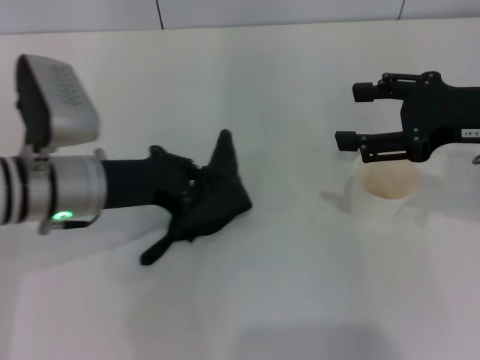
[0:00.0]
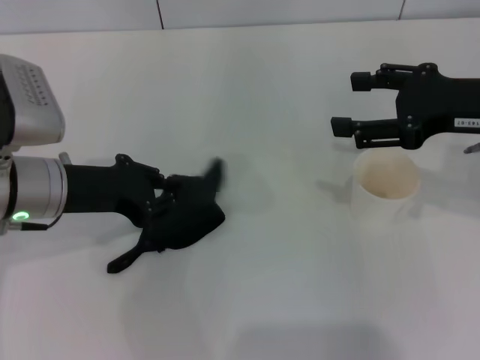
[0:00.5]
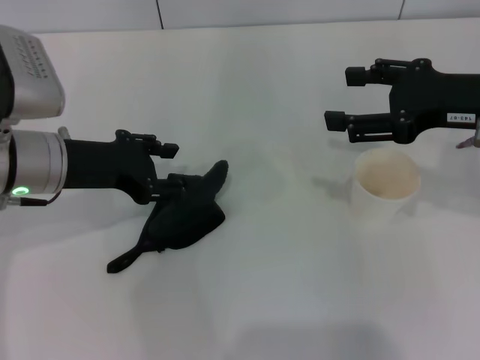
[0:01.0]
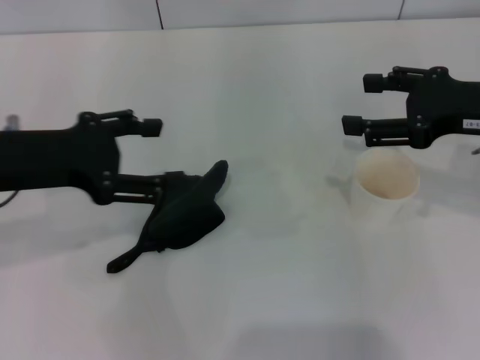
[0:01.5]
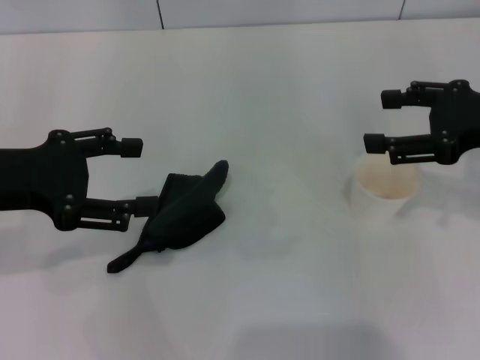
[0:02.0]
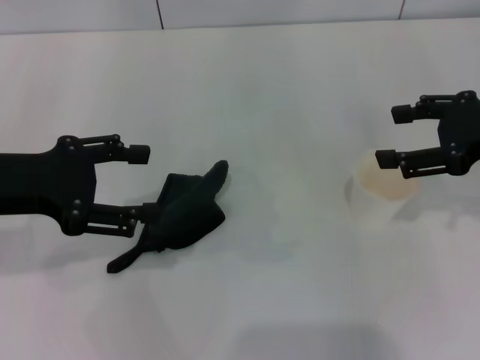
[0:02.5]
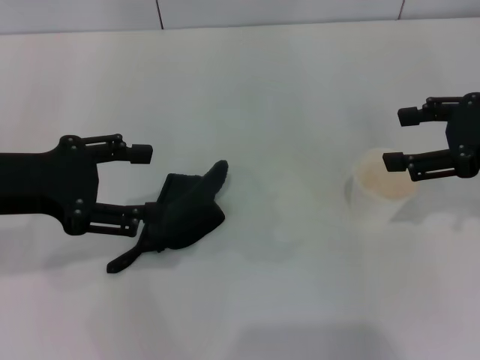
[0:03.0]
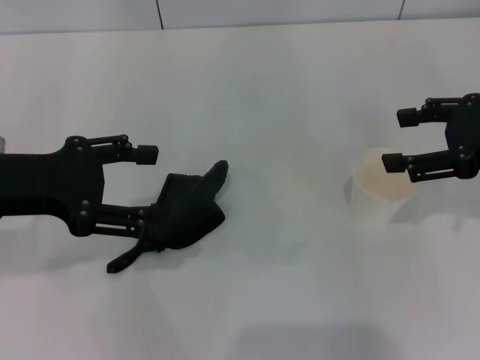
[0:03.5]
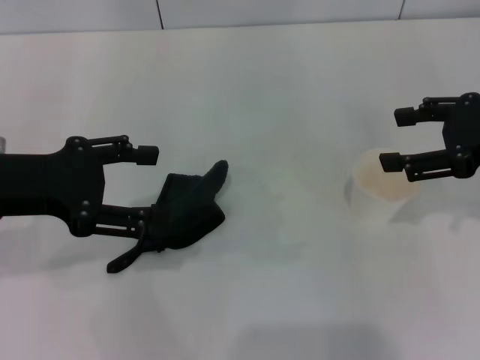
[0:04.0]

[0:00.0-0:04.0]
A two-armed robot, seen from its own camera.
Step, 0:00.5 to 0:01.0: Place the rag on the table with the left gripper.
0:00.0 to 0:02.0: The left gripper goes roughly 10 cm to the left and upward, and opens its fingers.
0:02.0 to 0:04.0: There are only small adjustments of the grippers.

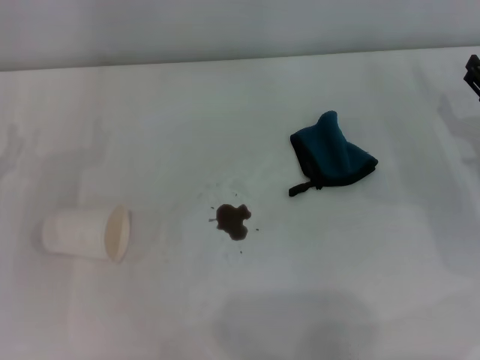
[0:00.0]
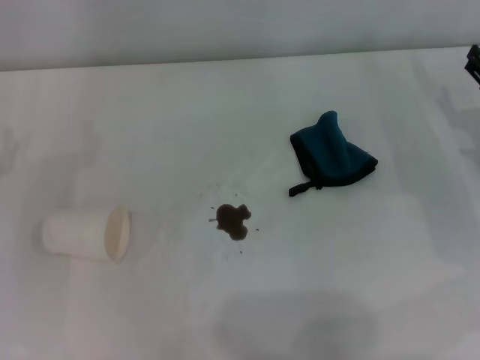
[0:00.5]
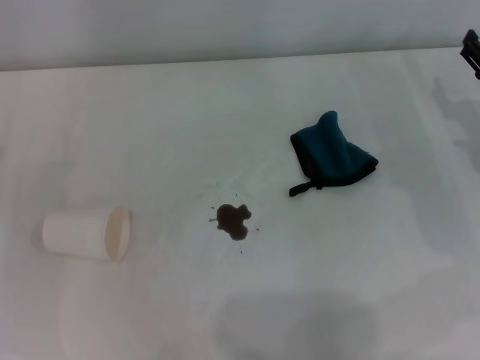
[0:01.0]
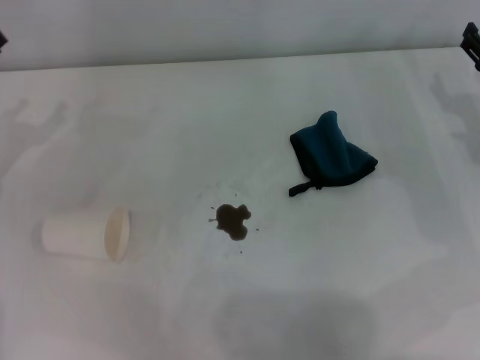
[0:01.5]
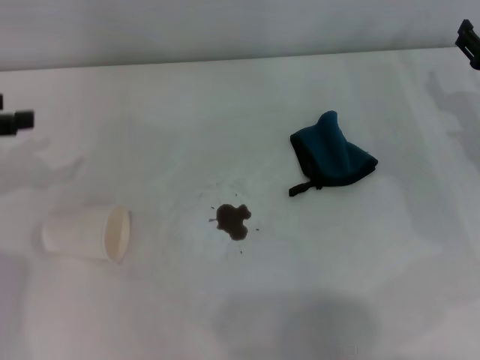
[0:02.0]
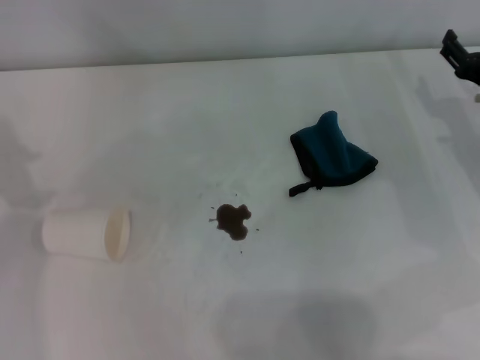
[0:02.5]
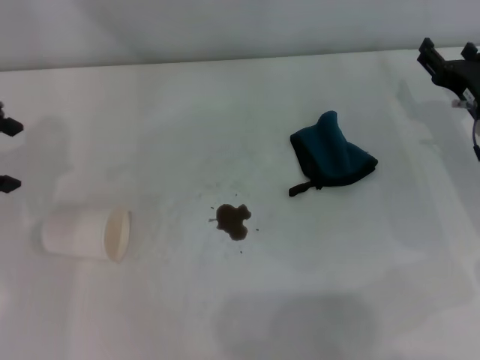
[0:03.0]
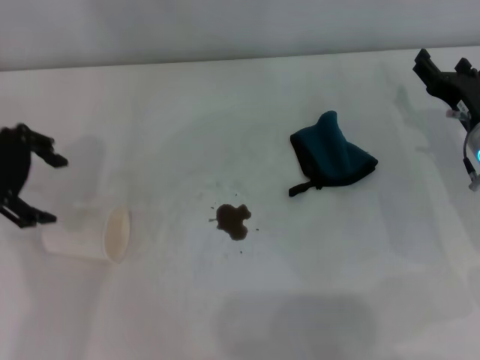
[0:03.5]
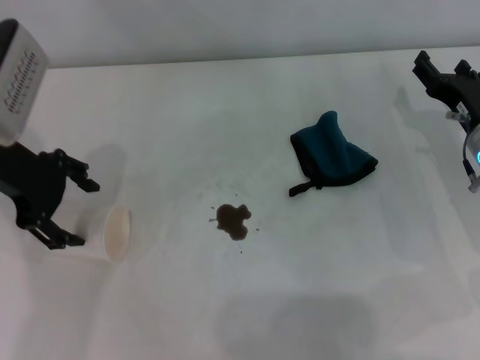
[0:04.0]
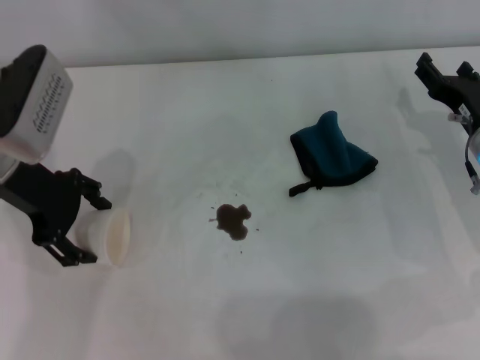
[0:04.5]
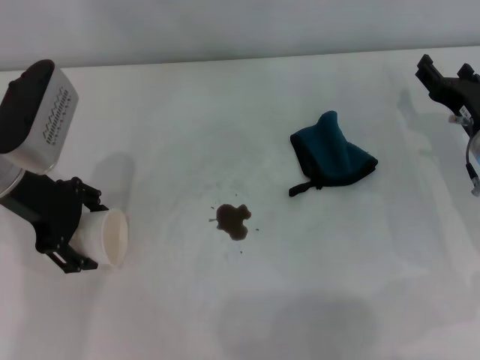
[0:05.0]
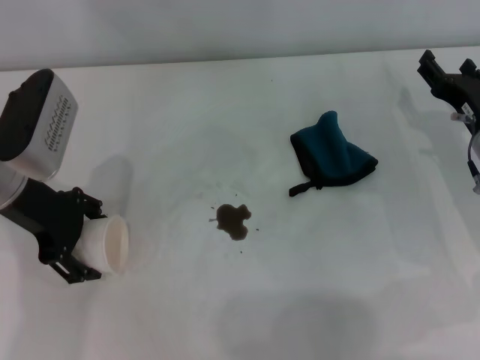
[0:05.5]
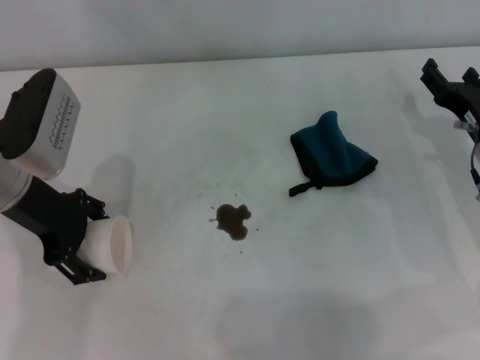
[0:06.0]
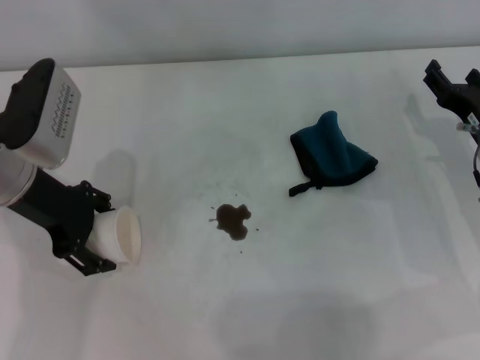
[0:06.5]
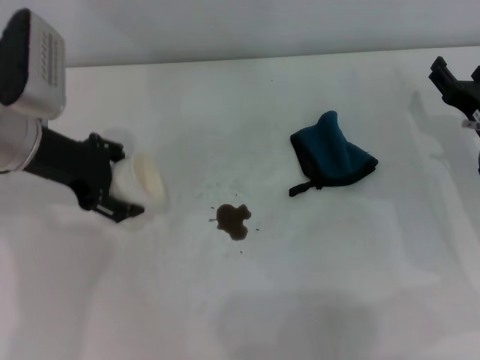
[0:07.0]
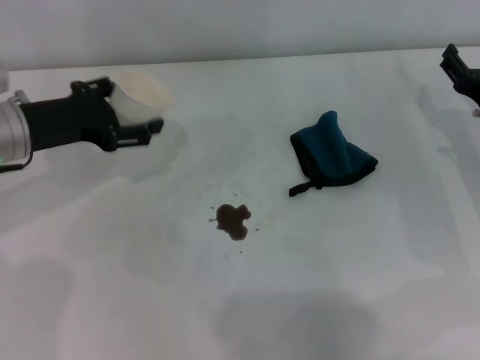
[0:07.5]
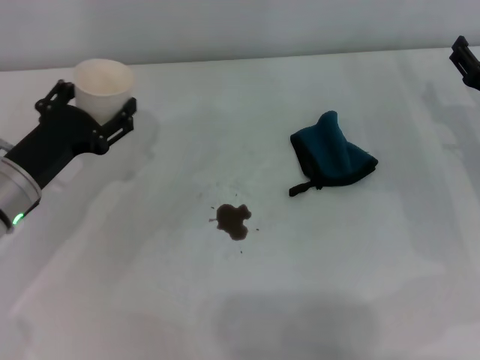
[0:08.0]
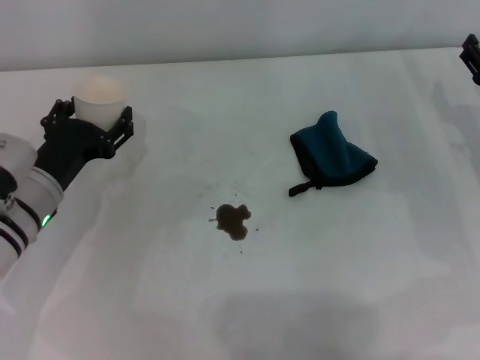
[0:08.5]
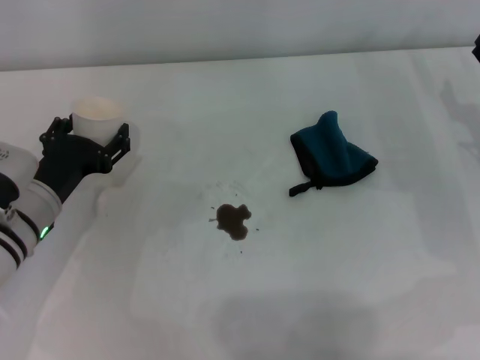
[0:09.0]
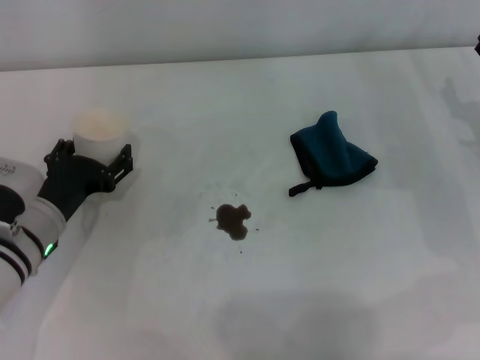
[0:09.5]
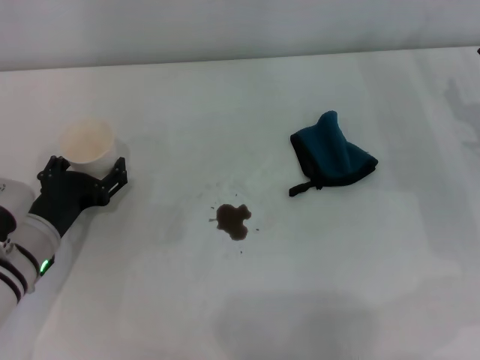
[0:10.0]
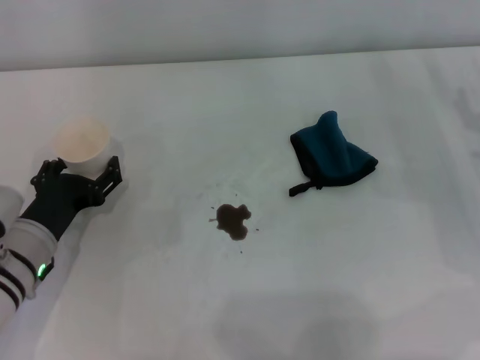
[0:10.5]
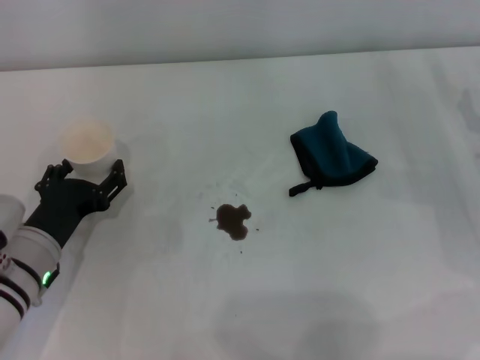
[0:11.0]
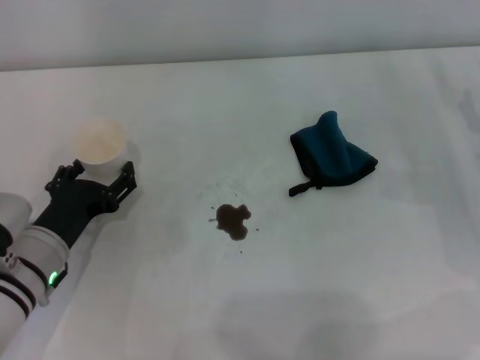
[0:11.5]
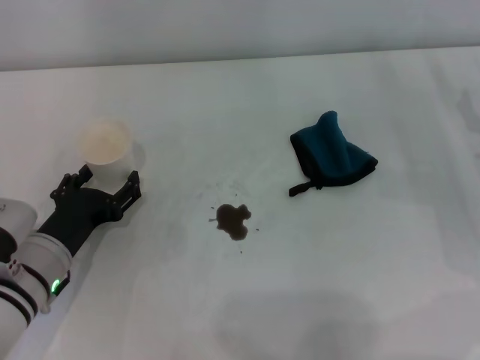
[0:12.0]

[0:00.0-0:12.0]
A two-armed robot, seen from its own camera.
Step, 0:00.0 to 0:06.0: Grasp the paper cup with the left gripper.
Step, 0:07.0 to 0:11.5: Stand the paper cup upright with the left gripper.
0:02.0 to 0:04.0: The right gripper moves roughly 5 cm. The left gripper travels to the right by roughly 10 cm.
0:04.0 to 0:06.0: There are only small adjustments of the grippers.
0:06.0 to 0:08.0: The left gripper travels downward by roughly 5 cm.
0:08.0 to 0:10.0: The left gripper travels downward by some 5 cm.
0:10.0 to 0:12.0: The grippers stay close to where they were, moving slightly.

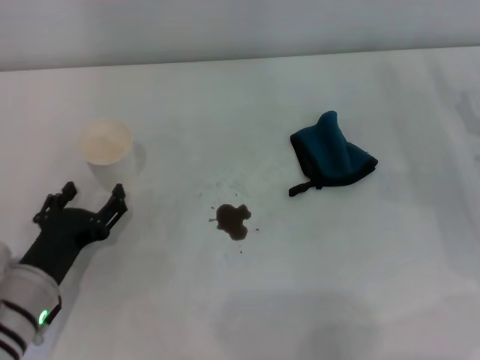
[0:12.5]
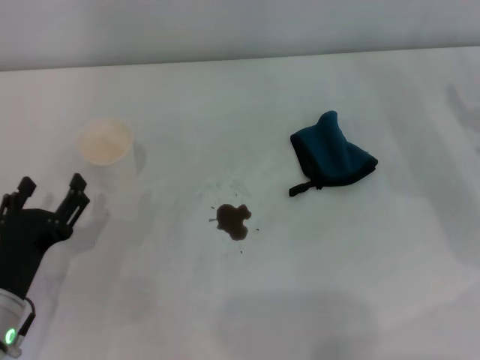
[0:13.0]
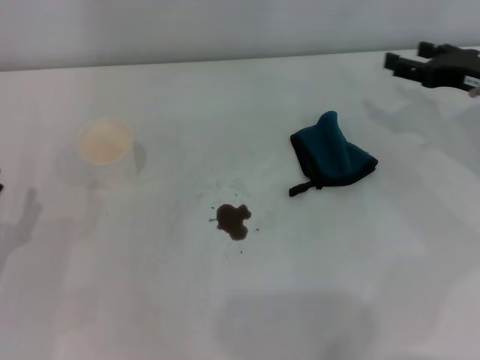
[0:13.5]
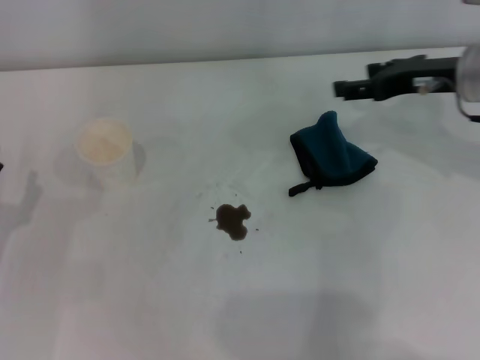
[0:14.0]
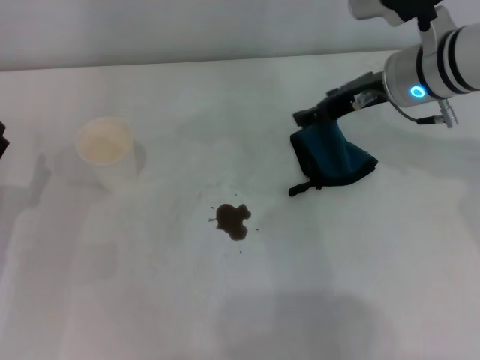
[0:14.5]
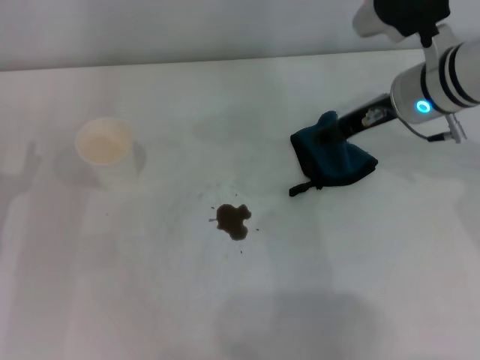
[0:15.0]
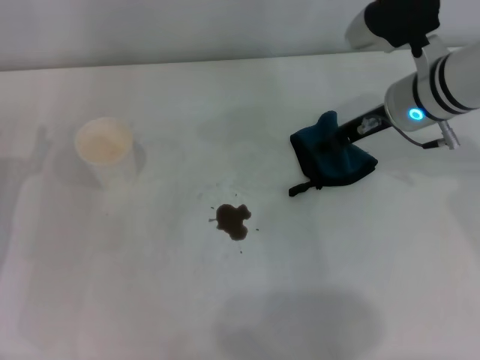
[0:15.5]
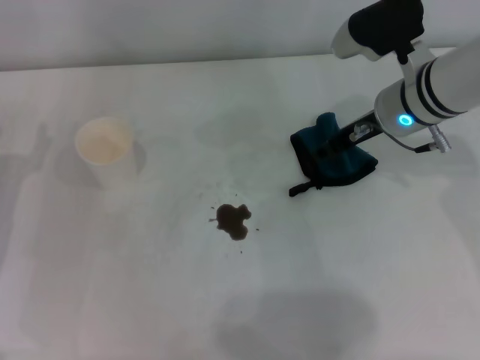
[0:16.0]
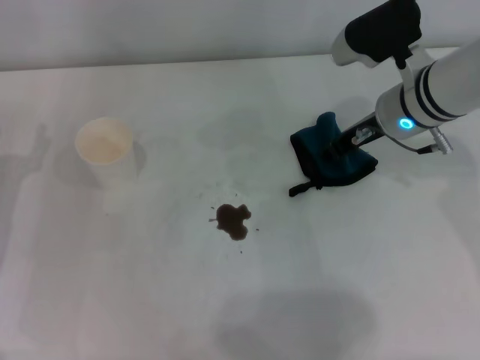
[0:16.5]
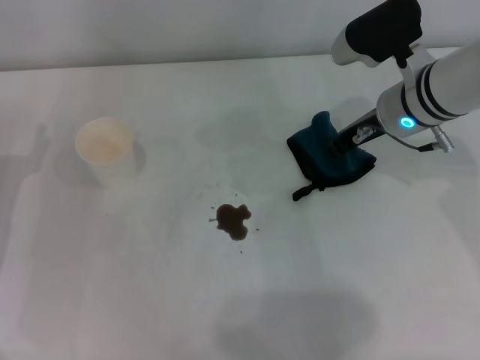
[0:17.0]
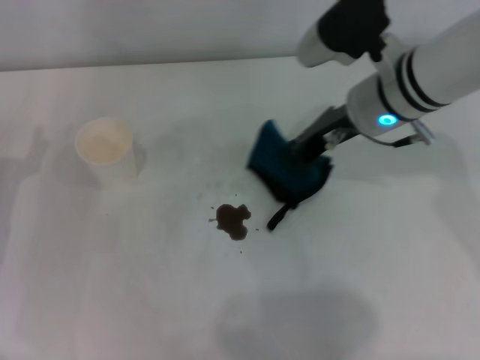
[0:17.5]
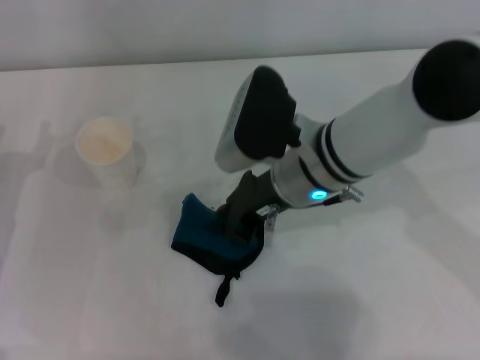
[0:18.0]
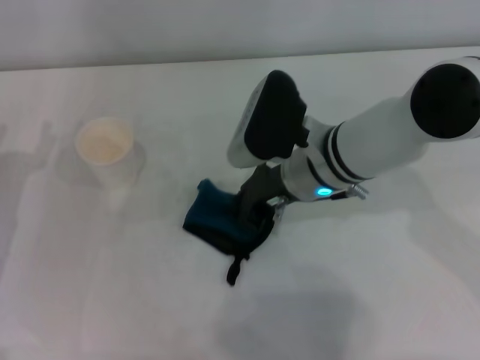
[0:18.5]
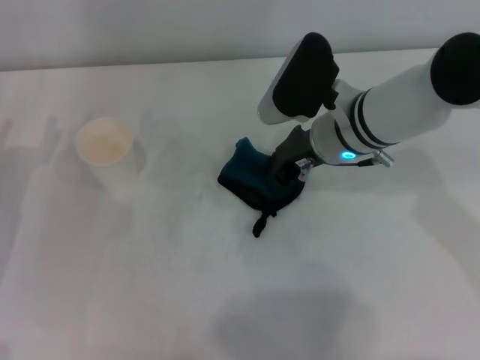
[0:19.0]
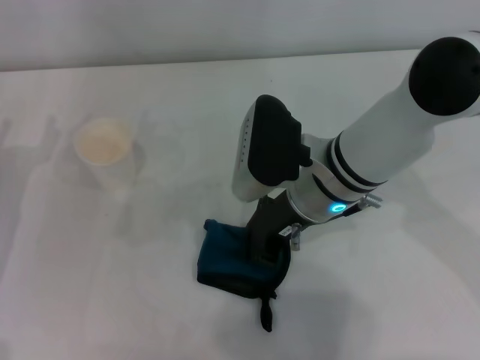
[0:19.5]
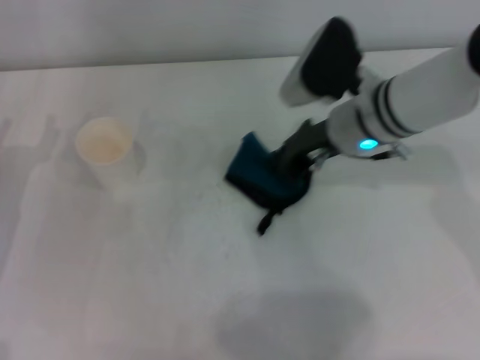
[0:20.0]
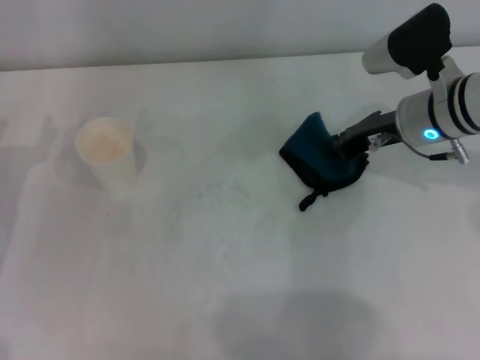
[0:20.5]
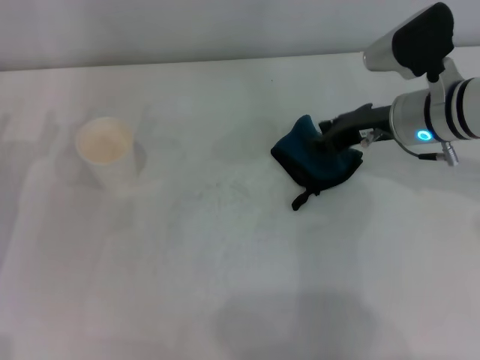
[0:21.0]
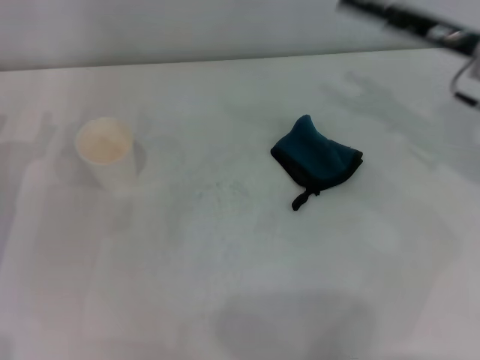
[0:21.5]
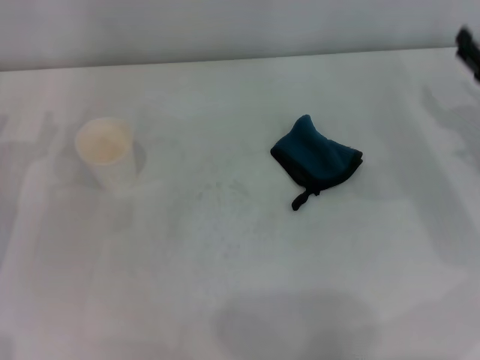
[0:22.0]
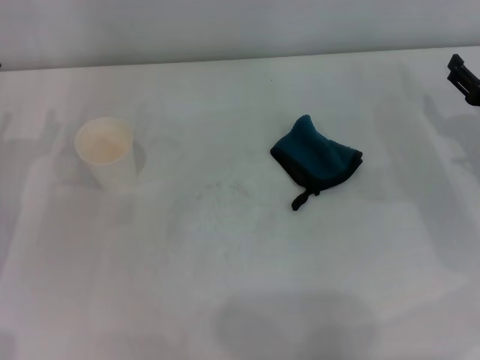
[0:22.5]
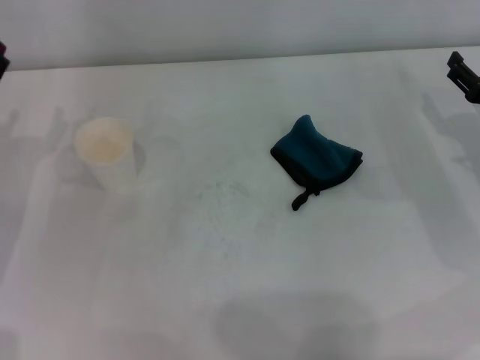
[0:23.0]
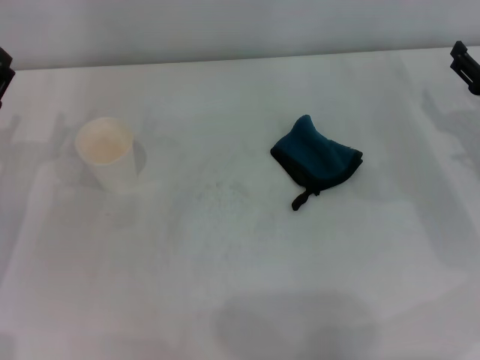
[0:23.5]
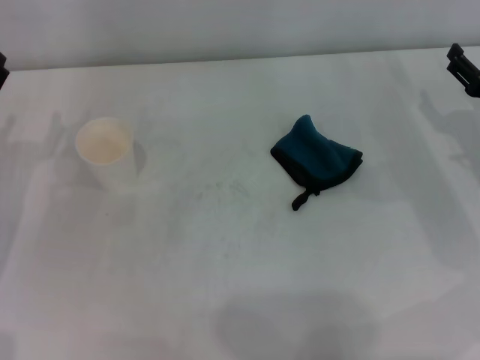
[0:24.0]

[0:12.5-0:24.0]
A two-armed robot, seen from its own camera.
Step, 0:12.5 to 0:17.0: Grasp the rag with the right gripper.
Step, 0:17.5 to 0:19.5: Wipe the stains off the table with the right gripper.
0:12.5 to 0:14.5: The left gripper is displaced to the left by approximately 10 cm. The right gripper goes approximately 20 cm to the left, upward and forward.
0:14.5 to 0:16.5: The right gripper closes.
0:16.5 to 0:18.5: The right gripper is displaced to the left by some 10 cm, and closes its fingers.
0:18.5 to 0:20.0: The right gripper travels to the right by approximately 5 cm.
0:20.0 to 0:22.0: The right gripper is displaced to the right by about 20 cm, and opens.
0:22.0 to 0:24.0: The grippers stay close to where they were, moving slightly.
